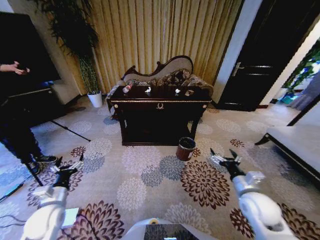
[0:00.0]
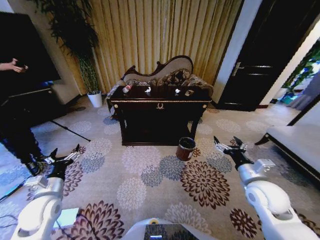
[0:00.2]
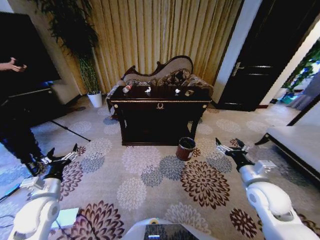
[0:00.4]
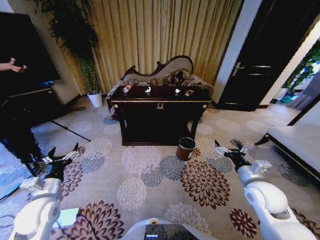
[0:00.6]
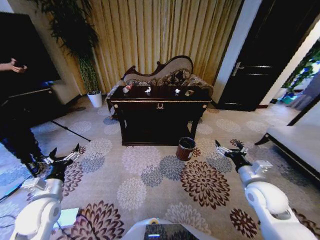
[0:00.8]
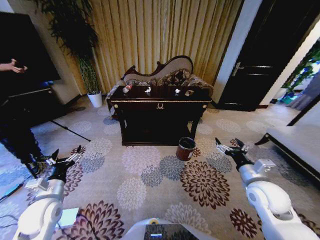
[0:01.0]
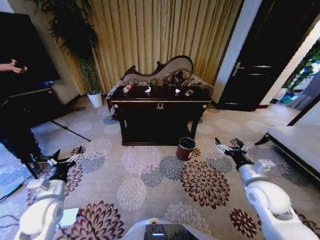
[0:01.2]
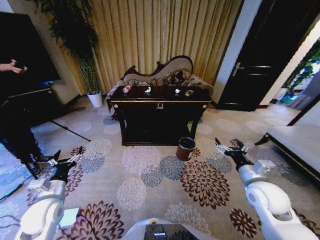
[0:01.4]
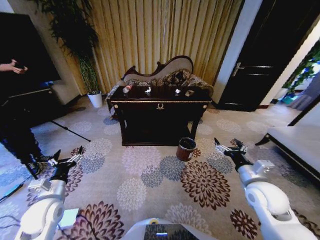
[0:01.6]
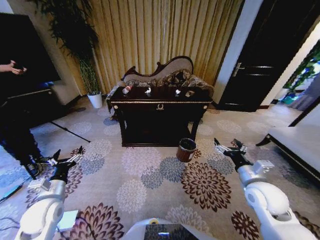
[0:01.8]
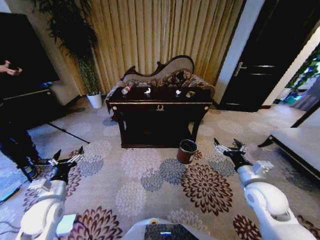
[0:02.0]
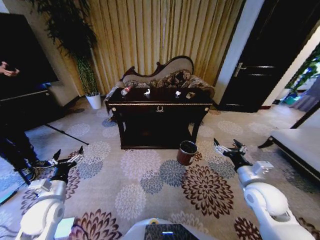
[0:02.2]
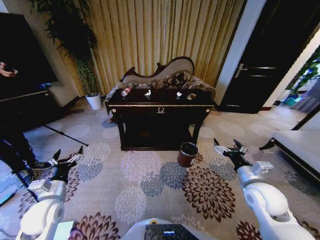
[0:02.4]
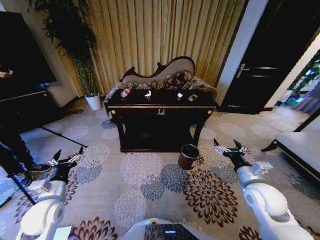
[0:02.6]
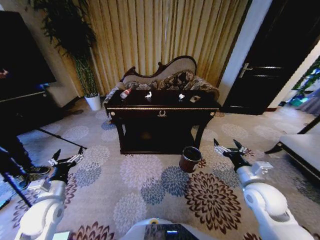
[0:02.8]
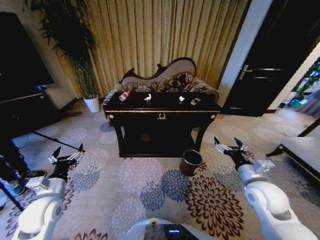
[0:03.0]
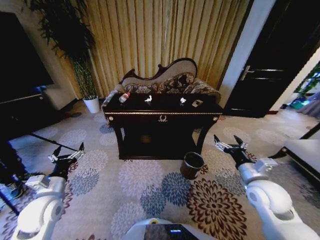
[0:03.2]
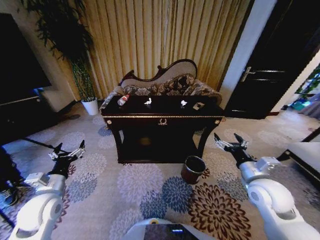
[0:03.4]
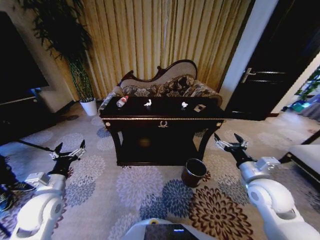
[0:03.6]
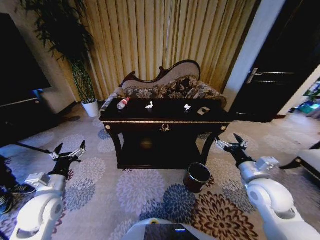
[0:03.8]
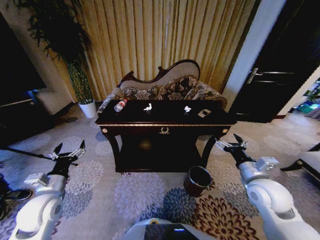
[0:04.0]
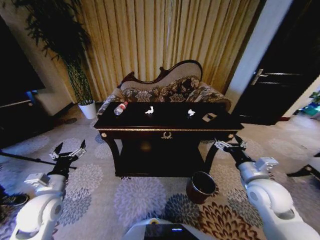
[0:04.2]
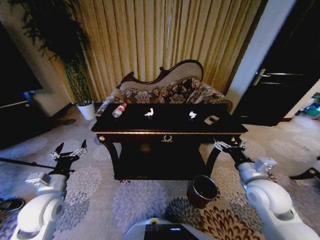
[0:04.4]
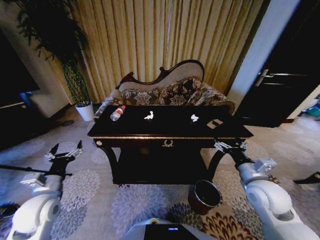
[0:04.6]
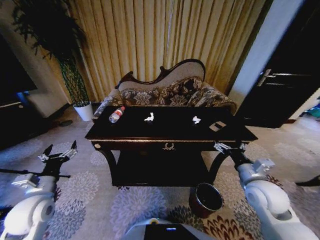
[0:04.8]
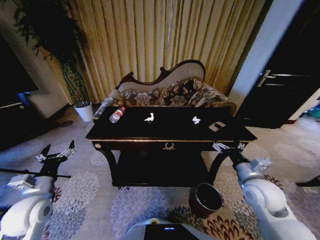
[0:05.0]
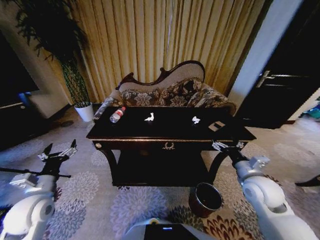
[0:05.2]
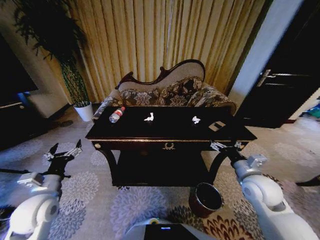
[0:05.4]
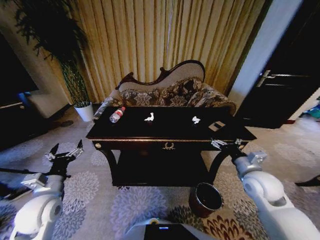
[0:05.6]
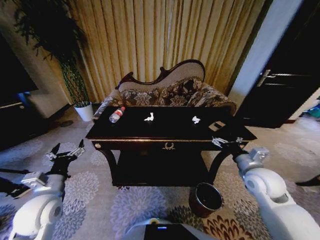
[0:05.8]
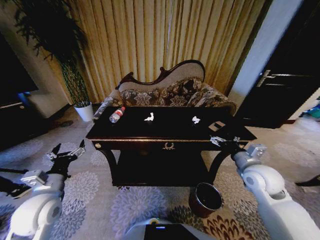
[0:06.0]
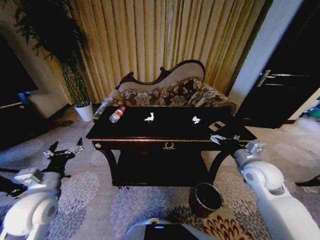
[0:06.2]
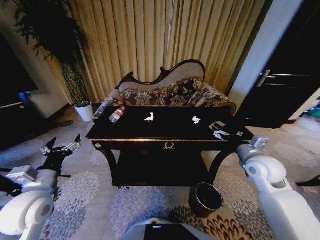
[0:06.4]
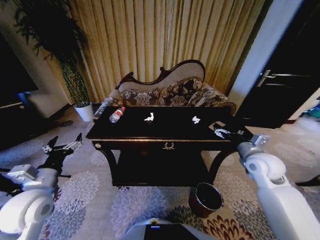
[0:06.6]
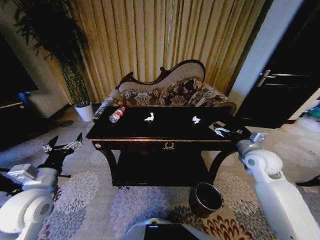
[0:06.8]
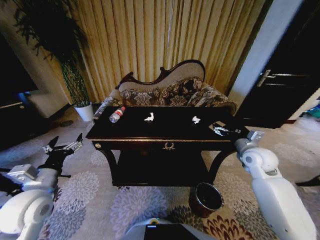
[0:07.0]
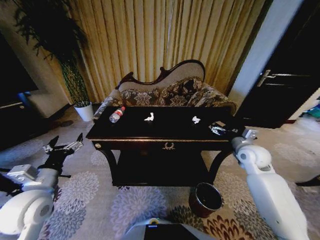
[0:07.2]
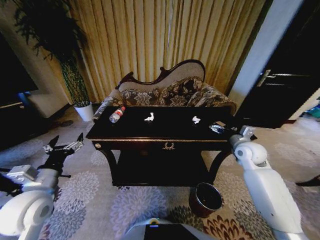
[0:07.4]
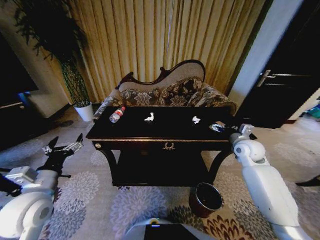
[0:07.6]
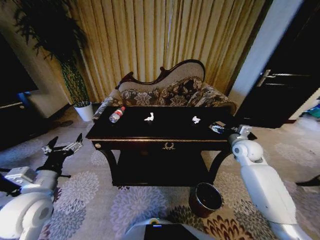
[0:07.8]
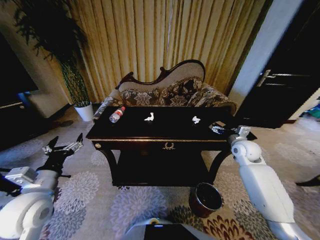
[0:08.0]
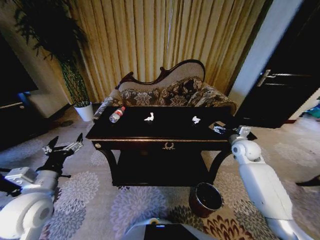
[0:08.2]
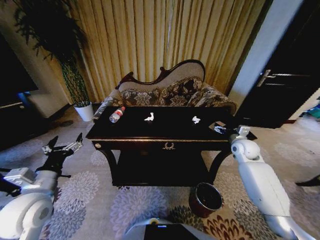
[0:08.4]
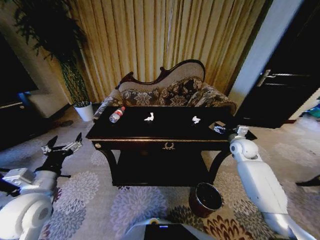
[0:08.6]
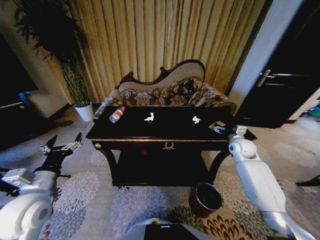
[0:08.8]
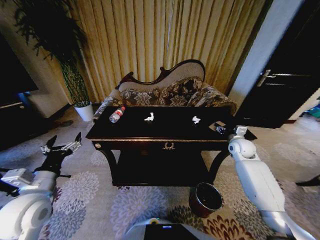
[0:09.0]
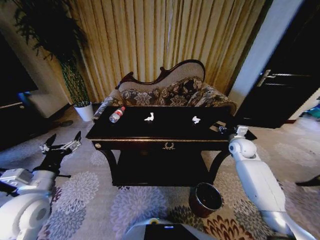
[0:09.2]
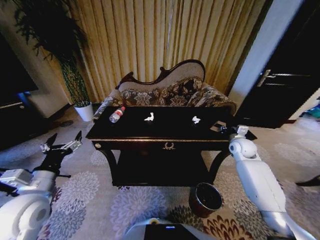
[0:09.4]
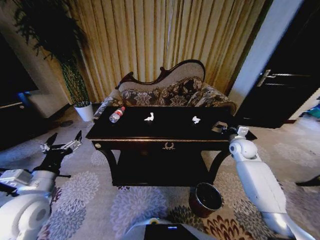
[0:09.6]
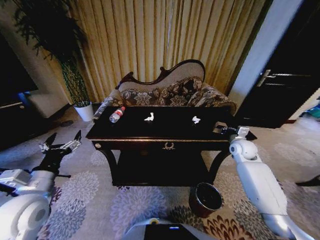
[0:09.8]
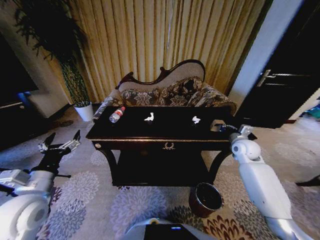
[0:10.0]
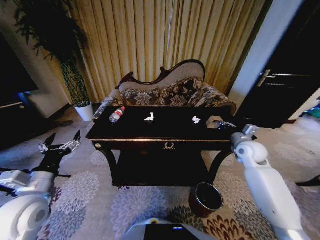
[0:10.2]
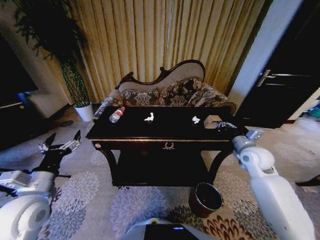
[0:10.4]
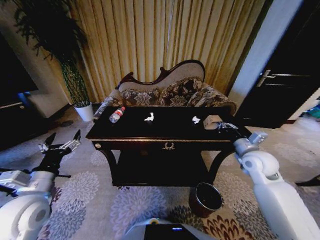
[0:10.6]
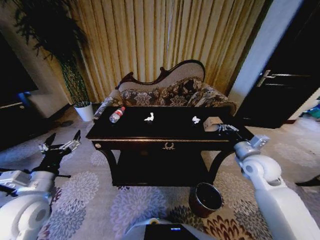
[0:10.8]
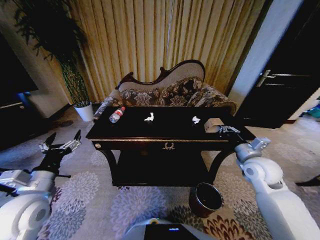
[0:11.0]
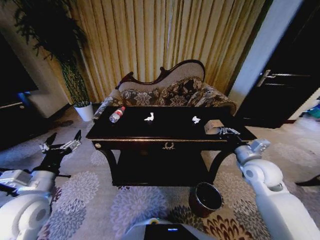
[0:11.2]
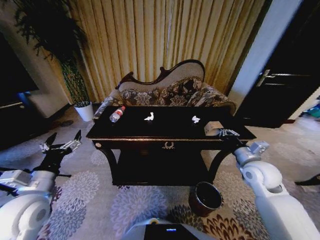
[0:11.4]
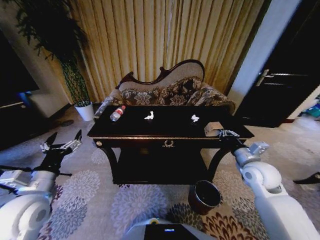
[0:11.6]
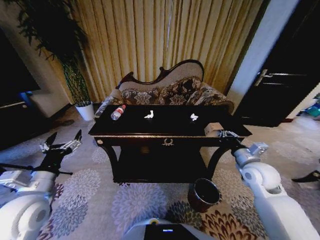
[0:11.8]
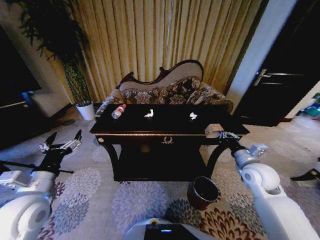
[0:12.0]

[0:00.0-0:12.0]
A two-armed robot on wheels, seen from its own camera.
Task of the whole recording: Move to the front of the table and place the trash on the table into the trash bin.
0:04.4 to 0:06.0: The right gripper shifts by some 5 cm.
0:06.0 to 0:07.6: The right gripper moves forward, roughly 10 cm.
0:07.6 to 0:09.0: The right gripper changes place by approximately 5 cm.
0:09.0 to 0:10.4: The right gripper shifts approximately 10 cm backward, and closes up.
0:10.4 to 0:12.0: The right gripper is displaced backward by approximately 5 cm.

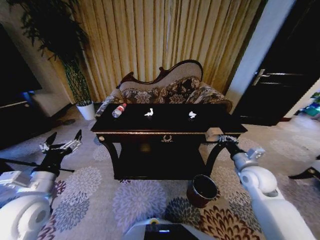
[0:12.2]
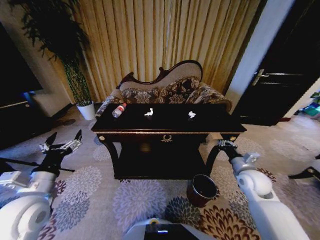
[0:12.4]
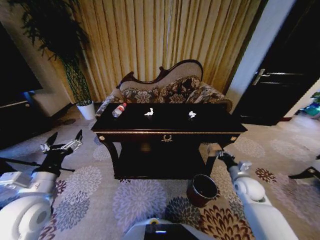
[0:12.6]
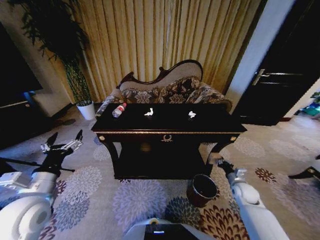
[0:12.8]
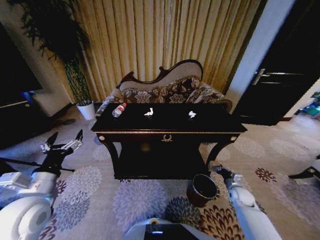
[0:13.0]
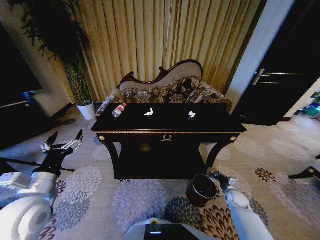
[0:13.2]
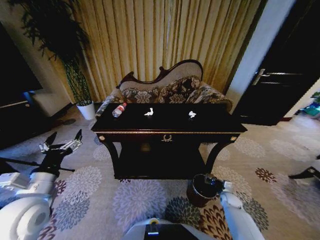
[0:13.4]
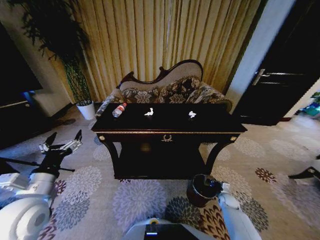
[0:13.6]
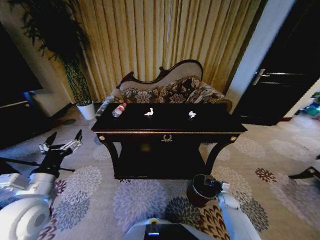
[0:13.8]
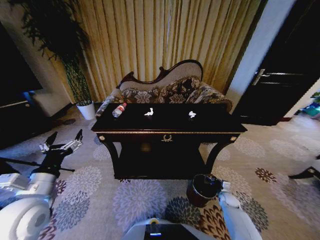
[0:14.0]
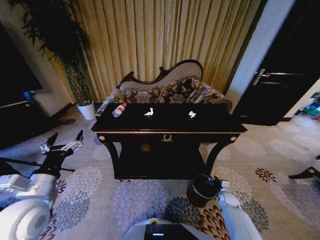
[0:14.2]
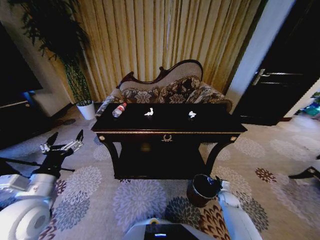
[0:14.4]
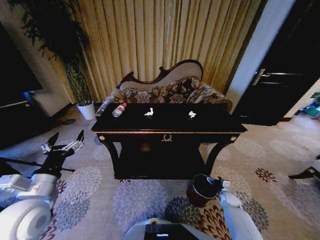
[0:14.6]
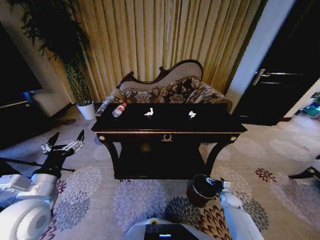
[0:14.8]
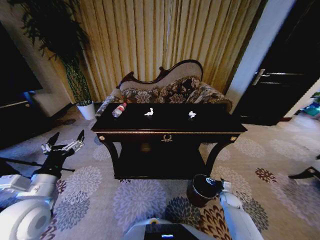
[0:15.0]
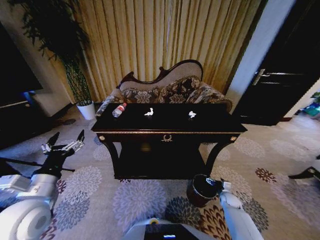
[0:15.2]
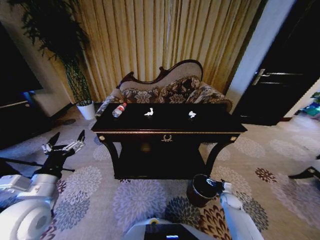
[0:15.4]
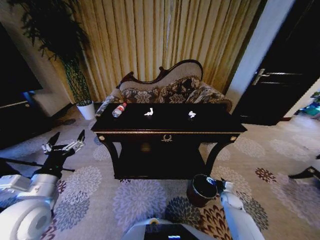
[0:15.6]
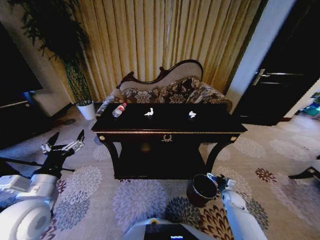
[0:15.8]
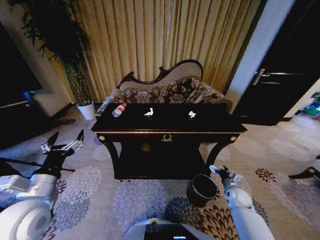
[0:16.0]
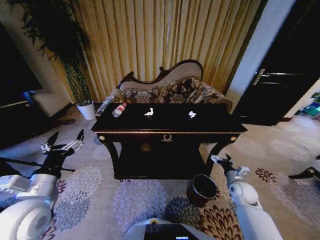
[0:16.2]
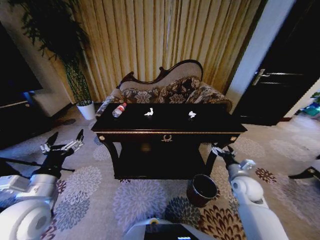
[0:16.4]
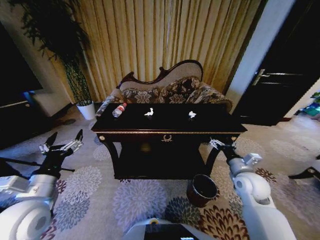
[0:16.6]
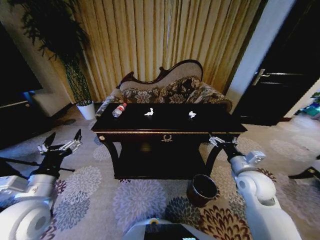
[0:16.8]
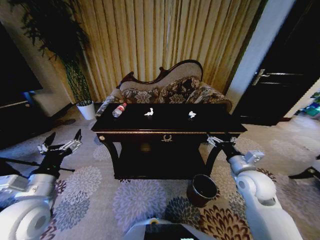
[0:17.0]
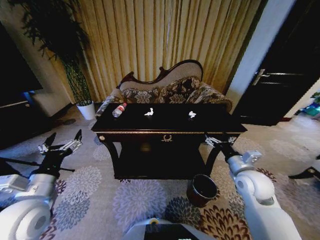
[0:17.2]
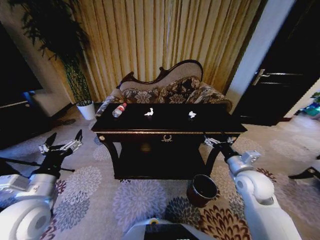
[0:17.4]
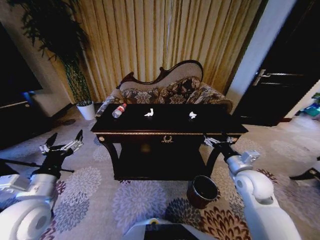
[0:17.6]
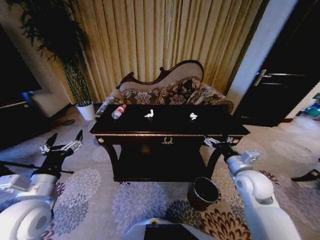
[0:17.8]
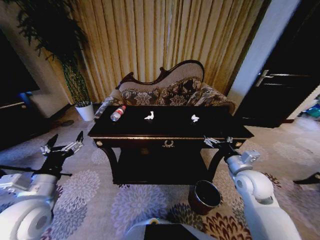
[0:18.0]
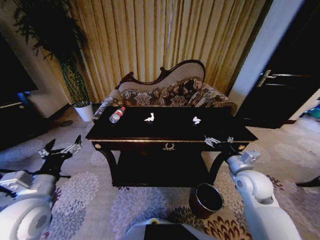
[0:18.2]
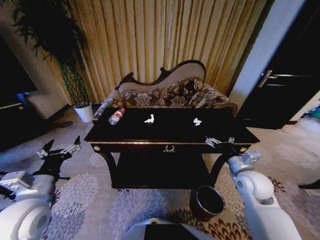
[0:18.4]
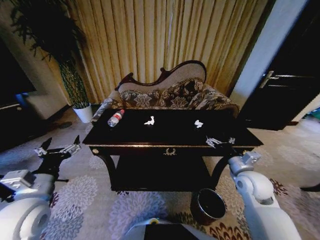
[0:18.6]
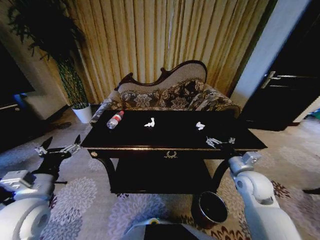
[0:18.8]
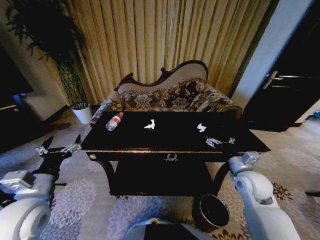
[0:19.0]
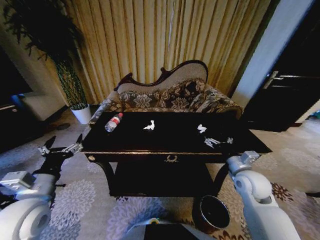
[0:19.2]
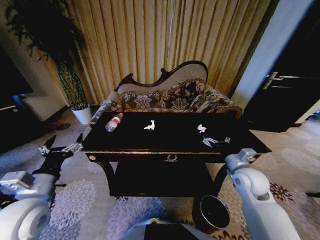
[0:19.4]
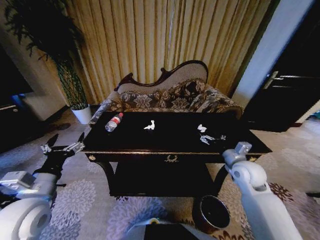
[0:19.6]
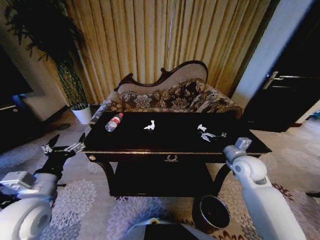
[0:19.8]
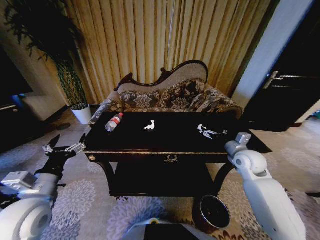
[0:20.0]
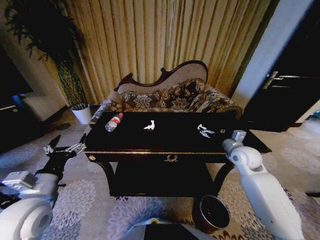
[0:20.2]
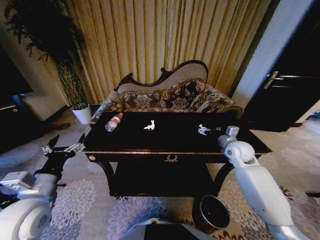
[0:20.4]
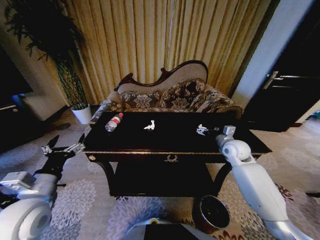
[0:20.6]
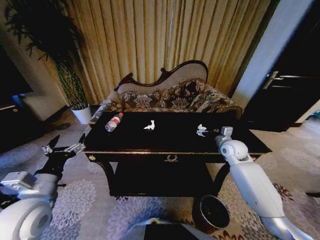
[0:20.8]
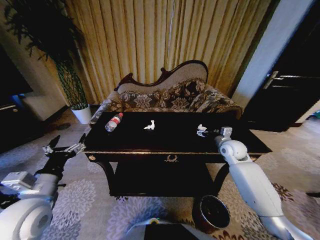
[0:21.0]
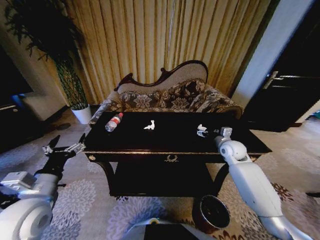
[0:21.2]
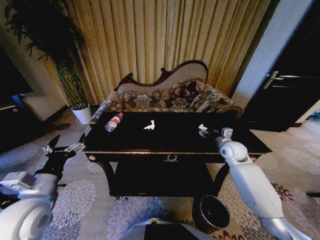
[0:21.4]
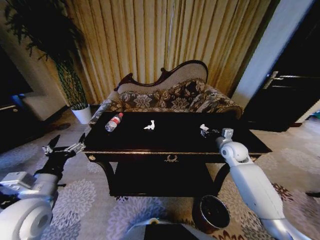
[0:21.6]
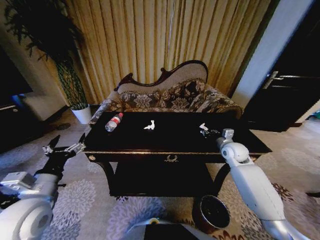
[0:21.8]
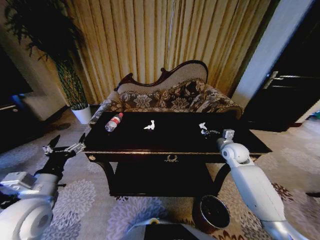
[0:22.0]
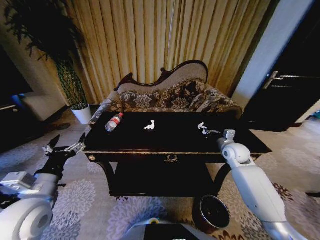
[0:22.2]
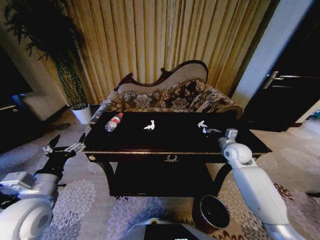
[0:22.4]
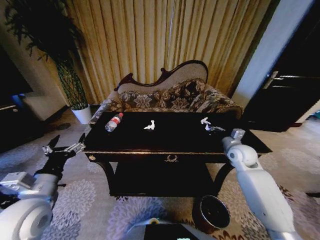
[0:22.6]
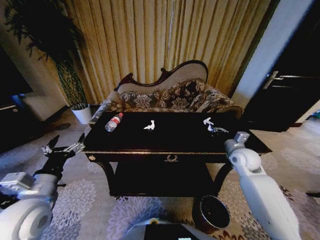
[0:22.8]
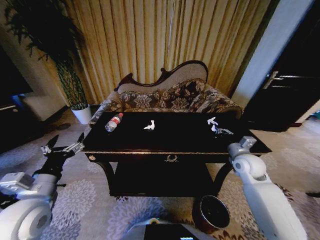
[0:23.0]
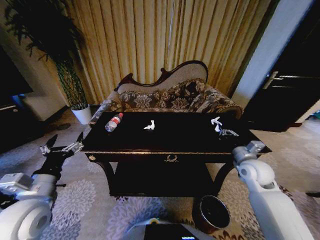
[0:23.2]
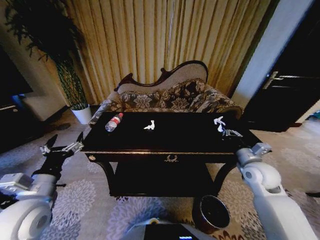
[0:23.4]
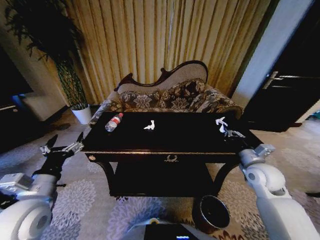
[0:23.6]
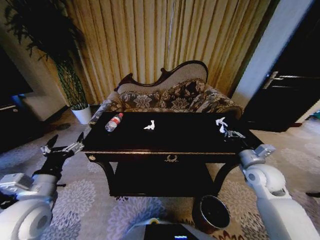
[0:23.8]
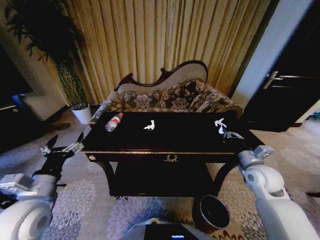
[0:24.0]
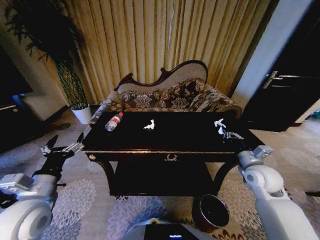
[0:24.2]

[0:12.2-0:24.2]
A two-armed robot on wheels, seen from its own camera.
Task of the whole recording: Move to the front of the table and place the trash on the table into the trash bin.
0:12.2 to 0:13.8: The right gripper goes approximately 30 cm downward.
0:15.2 to 0:16.6: The right gripper goes about 30 cm upward.
0:18.2 to 0:19.8: The right gripper is displaced forward by roughly 5 cm.
0:19.8 to 0:21.2: The right gripper is displaced forward by roughly 10 cm.
0:21.2 to 0:22.6: The right gripper closes its fingers.
0:22.6 to 0:24.2: The right gripper is displaced backward by roughly 10 cm.
